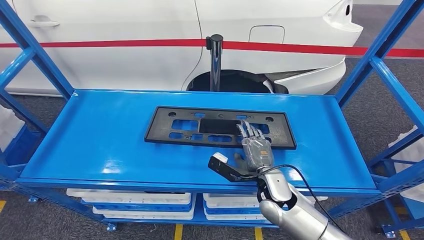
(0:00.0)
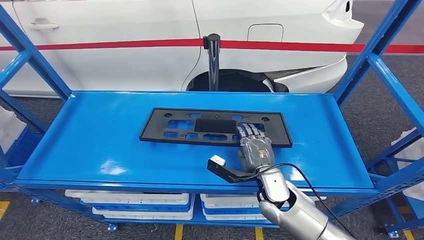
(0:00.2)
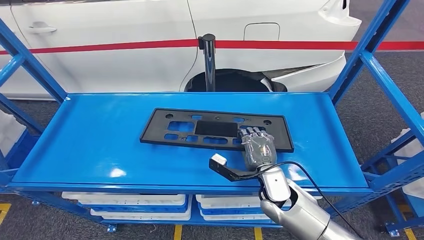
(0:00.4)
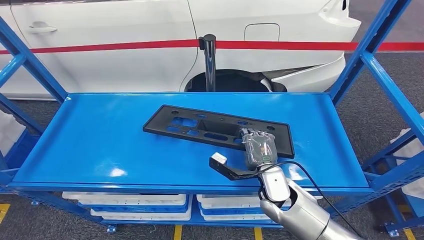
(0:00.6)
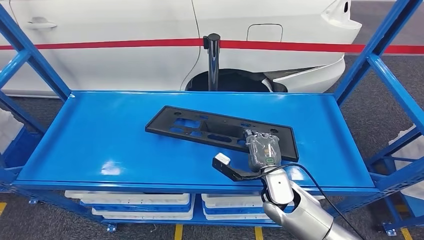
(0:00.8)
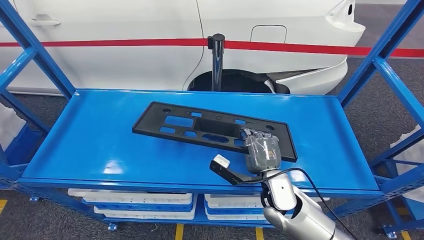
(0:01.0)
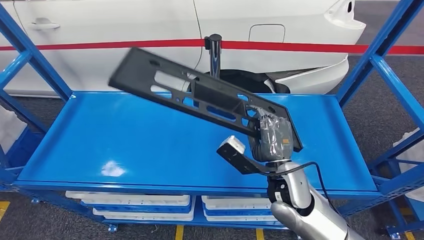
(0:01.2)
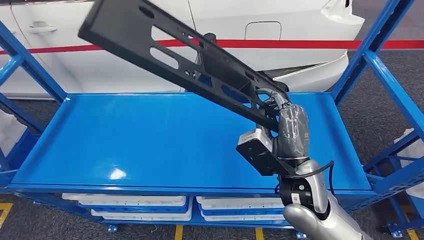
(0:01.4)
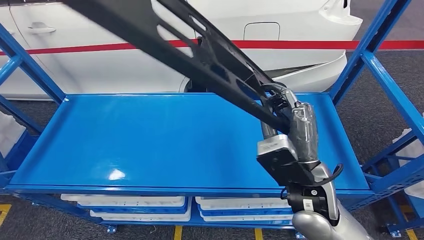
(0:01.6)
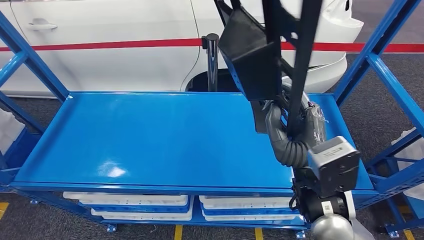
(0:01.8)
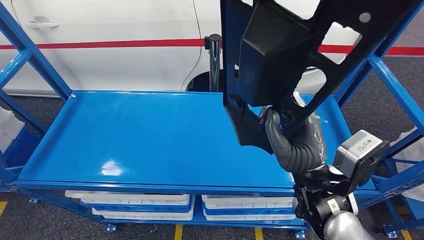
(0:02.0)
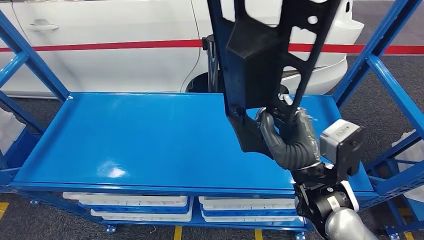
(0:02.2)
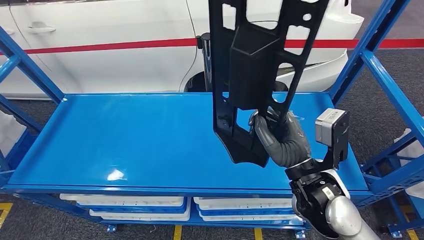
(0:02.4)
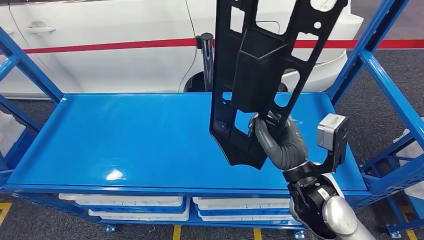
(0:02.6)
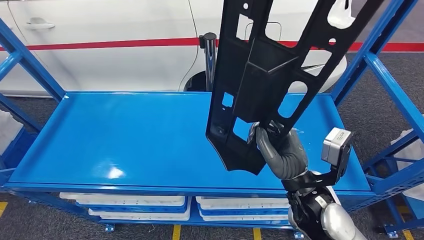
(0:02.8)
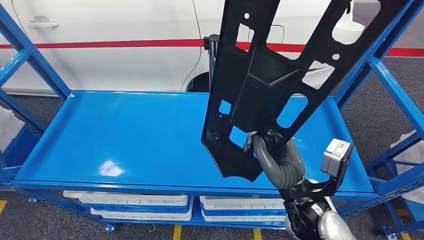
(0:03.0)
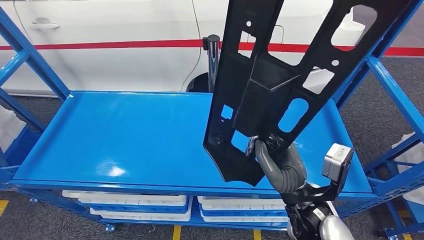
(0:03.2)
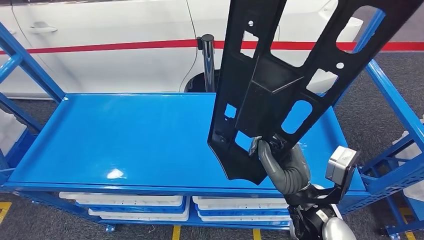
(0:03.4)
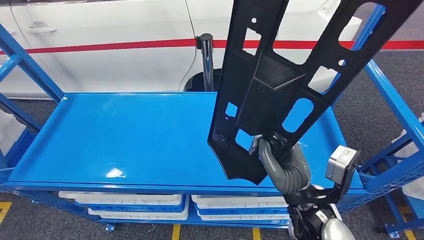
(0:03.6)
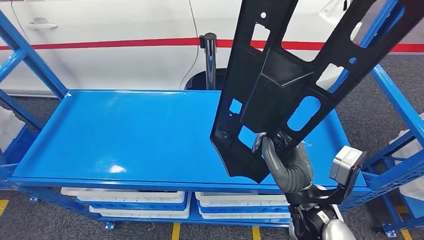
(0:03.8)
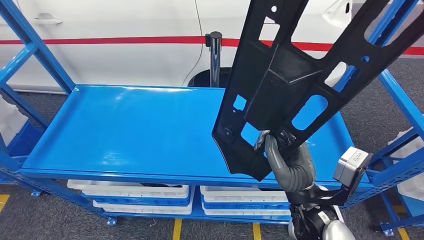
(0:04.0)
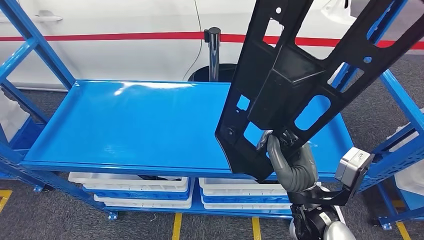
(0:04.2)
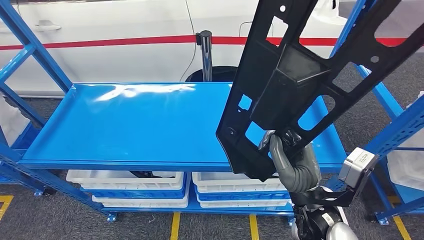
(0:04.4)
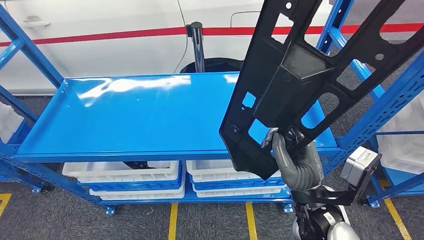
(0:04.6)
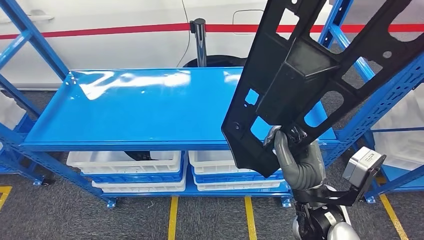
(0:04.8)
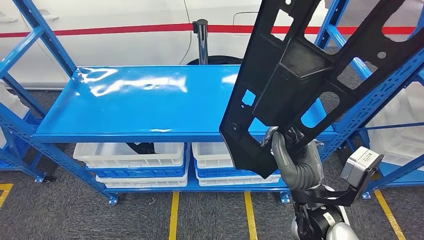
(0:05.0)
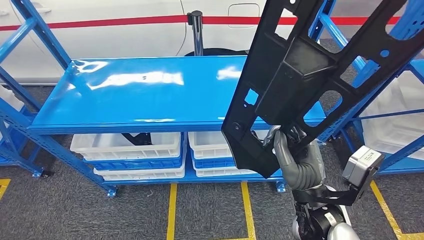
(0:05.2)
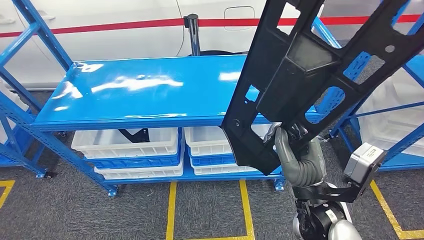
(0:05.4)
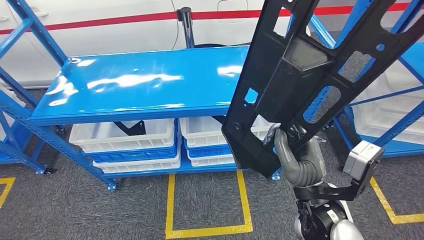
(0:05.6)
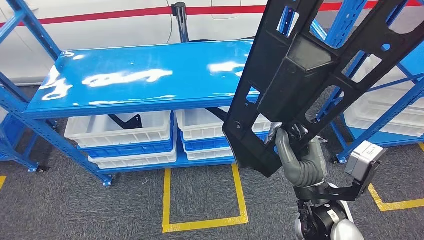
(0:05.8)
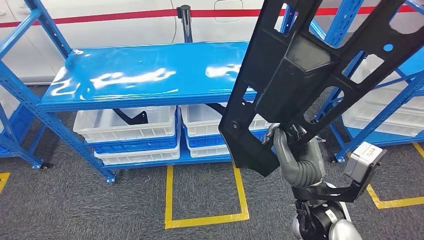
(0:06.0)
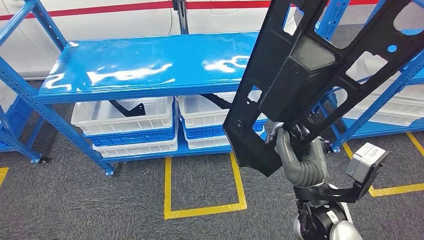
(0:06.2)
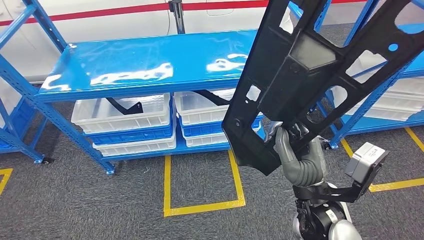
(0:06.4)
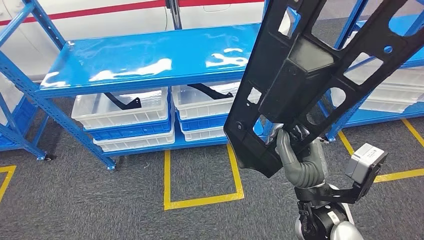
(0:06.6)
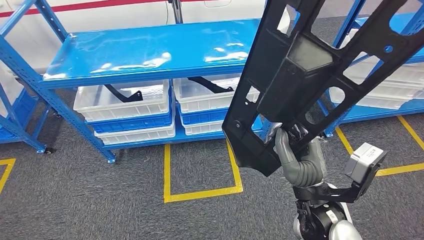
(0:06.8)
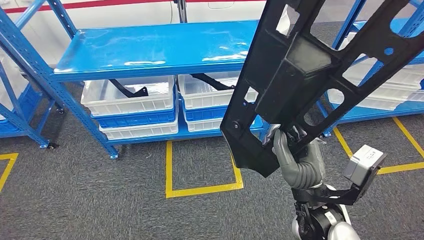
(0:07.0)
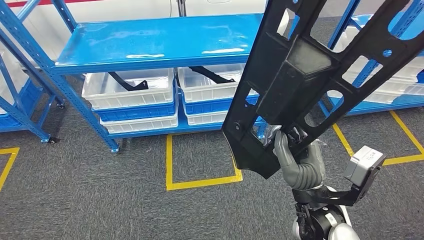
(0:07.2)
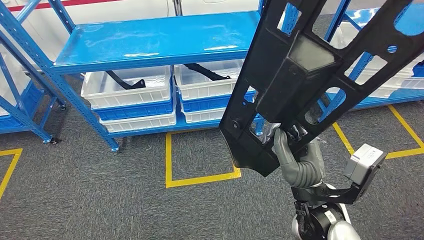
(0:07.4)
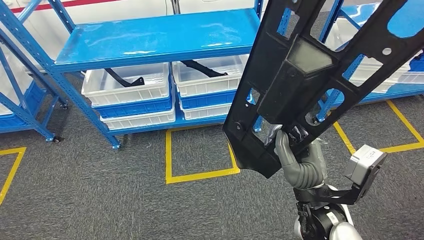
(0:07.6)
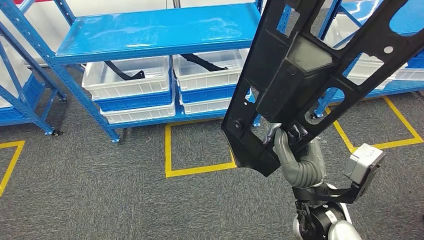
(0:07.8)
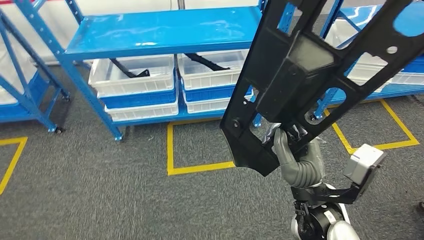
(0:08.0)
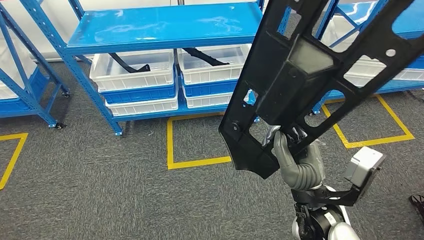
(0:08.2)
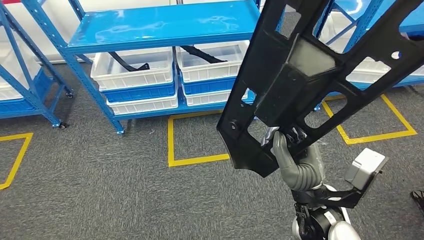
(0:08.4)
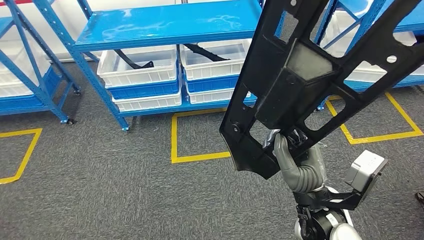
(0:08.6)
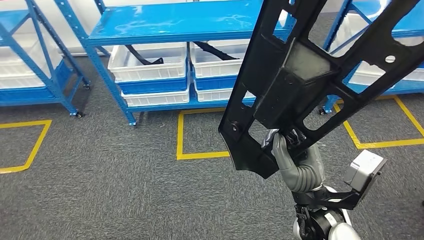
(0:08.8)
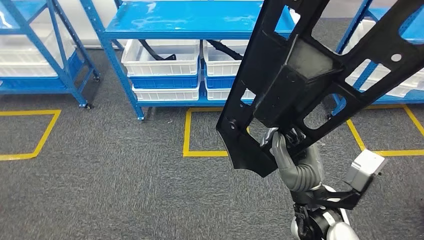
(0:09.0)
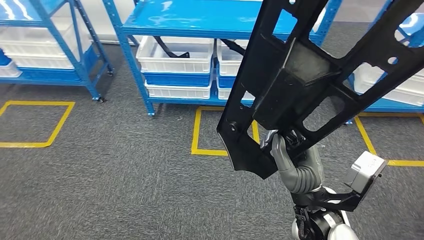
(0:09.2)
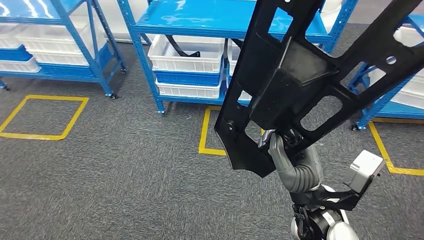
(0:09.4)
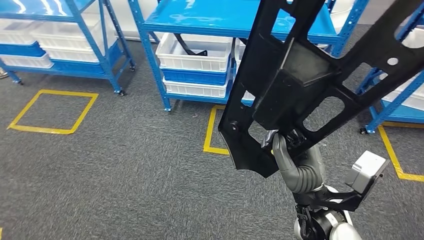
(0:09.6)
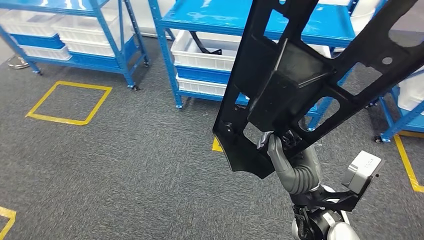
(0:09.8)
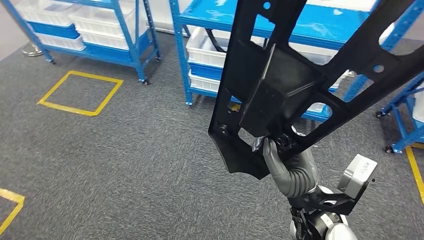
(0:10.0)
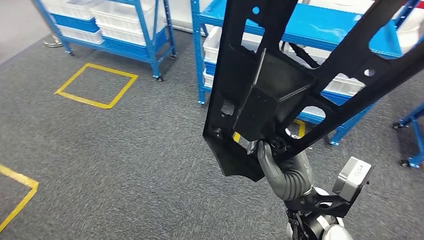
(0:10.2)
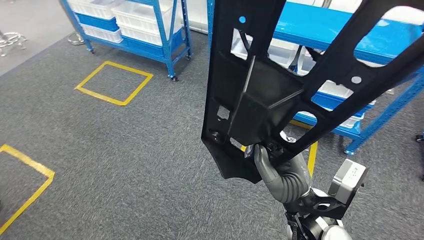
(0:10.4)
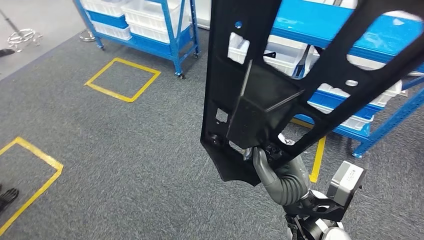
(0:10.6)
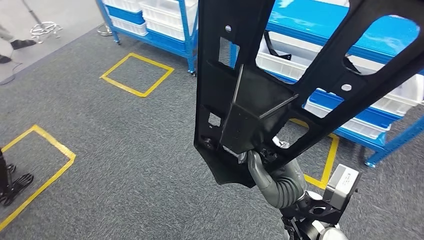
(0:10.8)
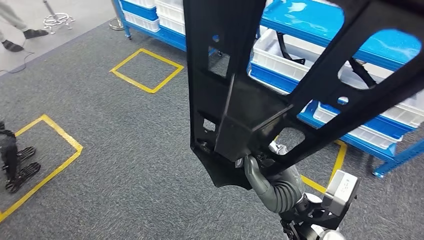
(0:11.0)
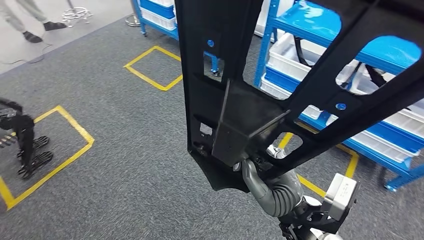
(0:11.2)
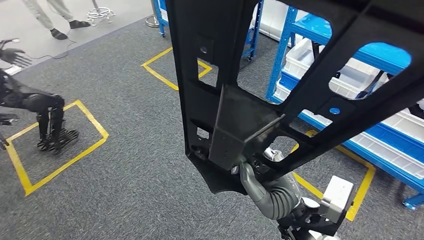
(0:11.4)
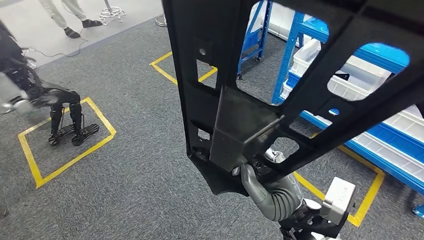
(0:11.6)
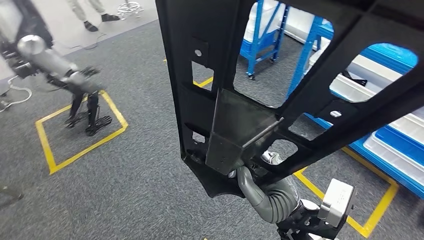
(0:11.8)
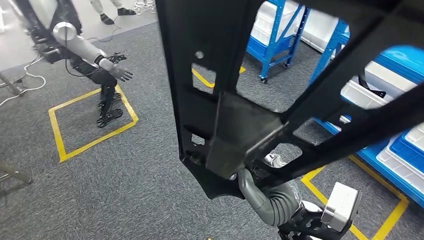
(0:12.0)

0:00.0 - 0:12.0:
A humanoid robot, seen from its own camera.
Step, 0:00.0 - 0:02.0: Pick up the large material from the shelf.

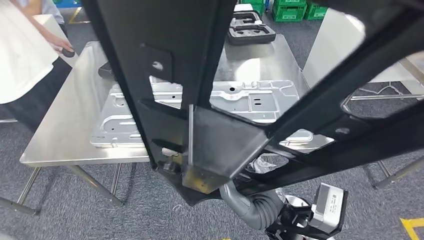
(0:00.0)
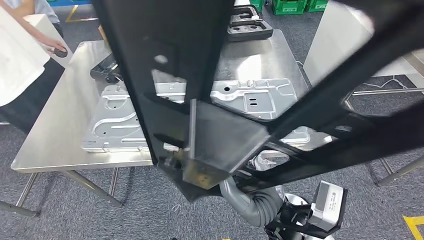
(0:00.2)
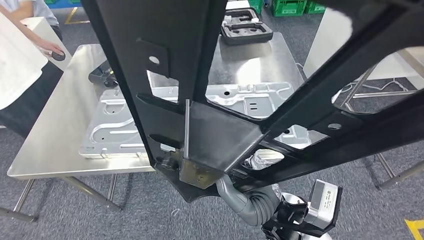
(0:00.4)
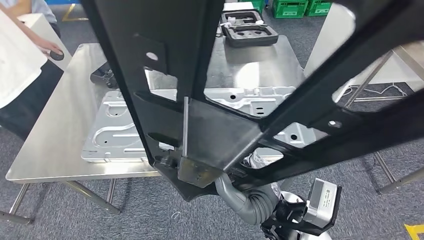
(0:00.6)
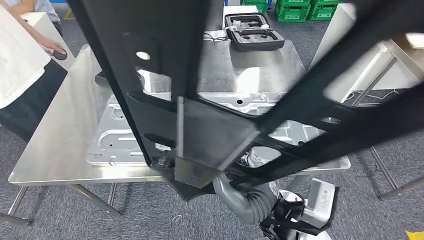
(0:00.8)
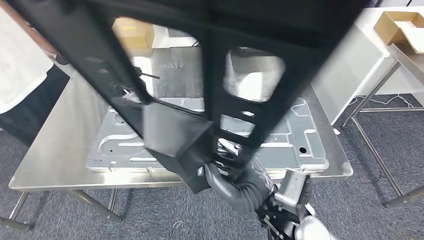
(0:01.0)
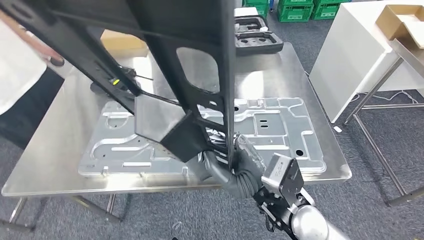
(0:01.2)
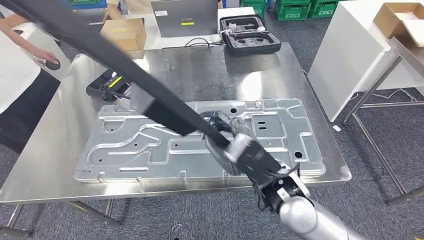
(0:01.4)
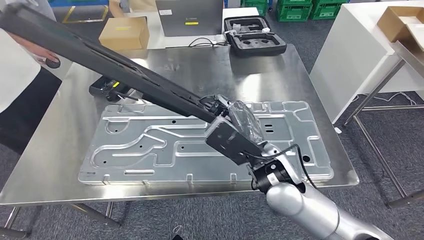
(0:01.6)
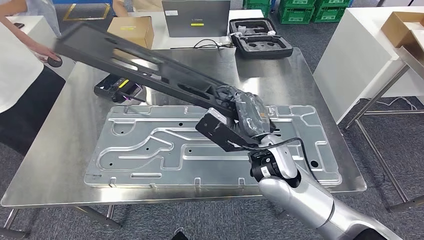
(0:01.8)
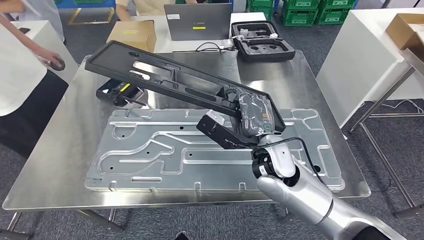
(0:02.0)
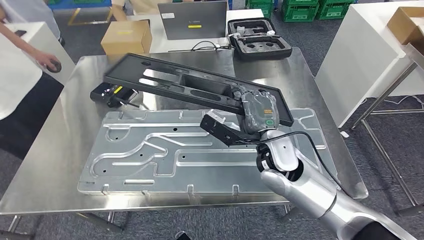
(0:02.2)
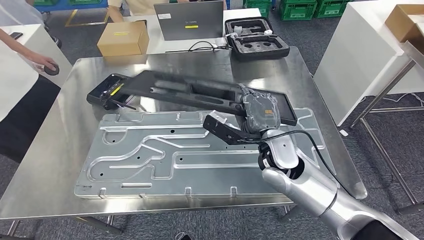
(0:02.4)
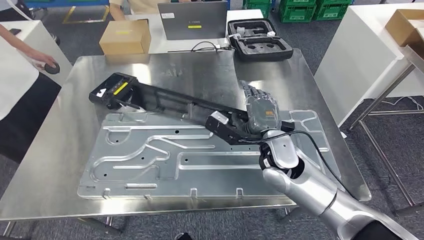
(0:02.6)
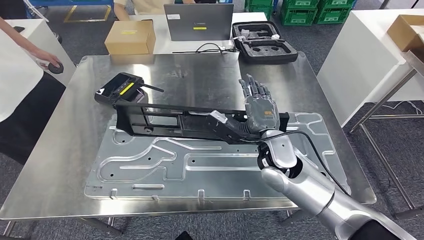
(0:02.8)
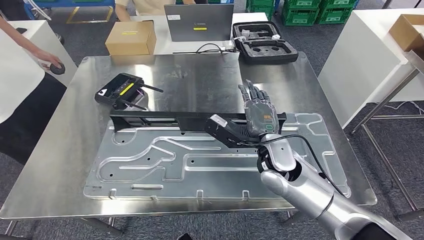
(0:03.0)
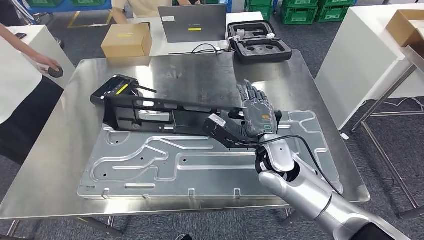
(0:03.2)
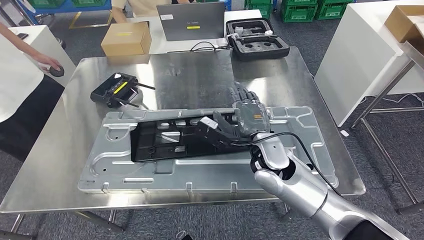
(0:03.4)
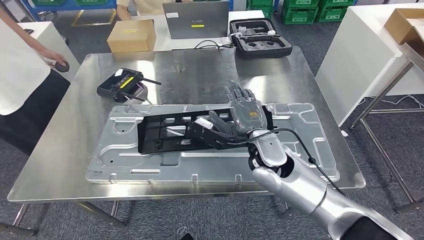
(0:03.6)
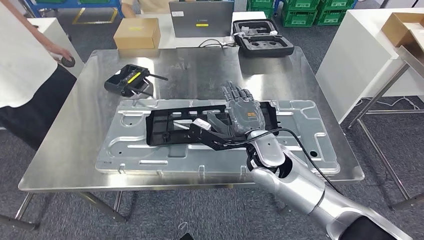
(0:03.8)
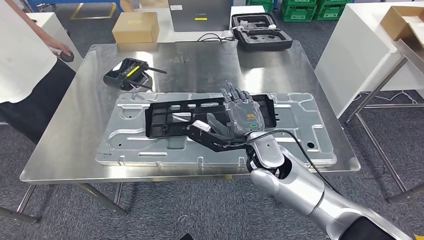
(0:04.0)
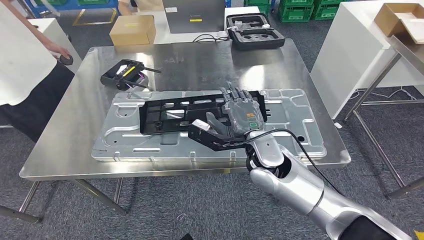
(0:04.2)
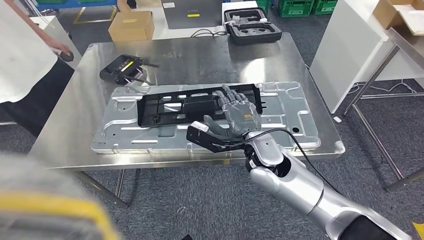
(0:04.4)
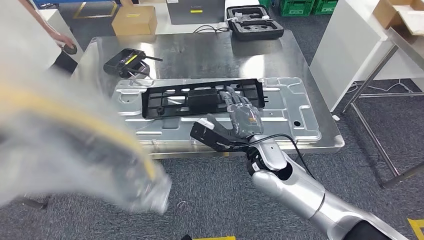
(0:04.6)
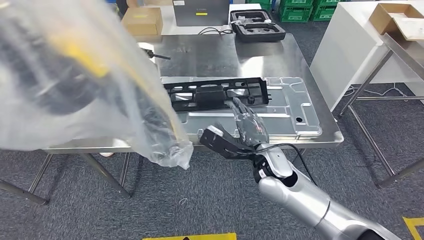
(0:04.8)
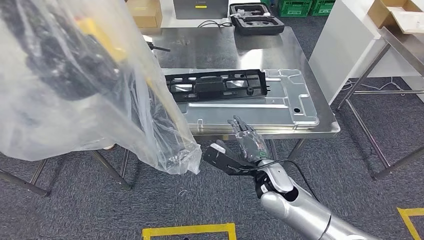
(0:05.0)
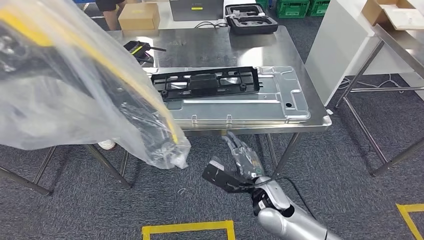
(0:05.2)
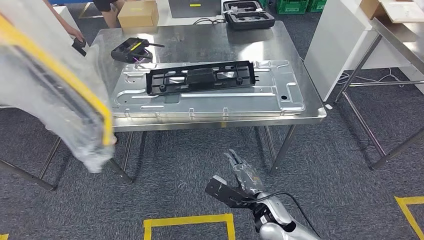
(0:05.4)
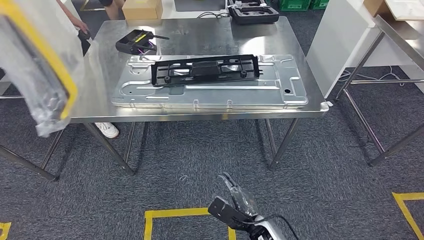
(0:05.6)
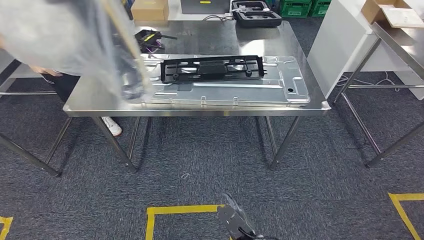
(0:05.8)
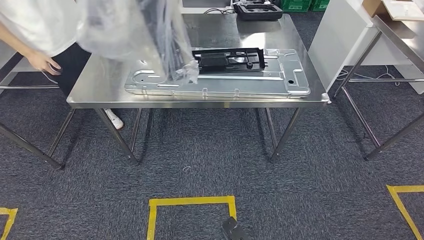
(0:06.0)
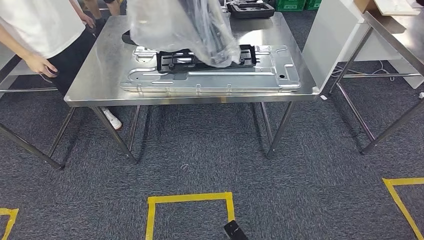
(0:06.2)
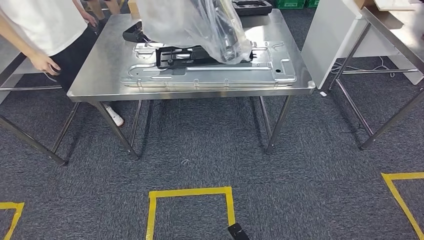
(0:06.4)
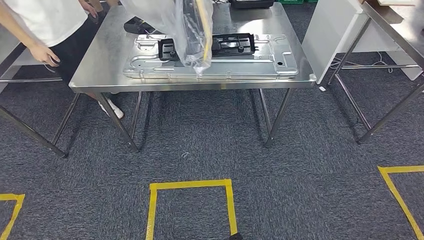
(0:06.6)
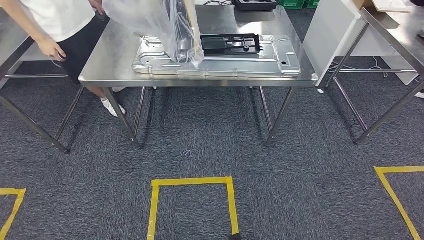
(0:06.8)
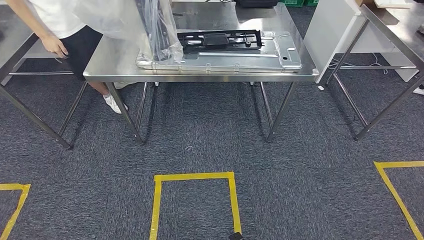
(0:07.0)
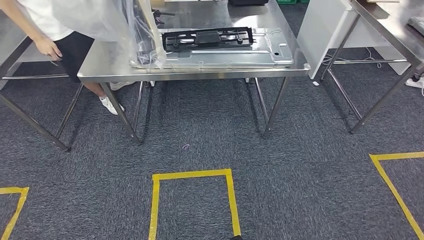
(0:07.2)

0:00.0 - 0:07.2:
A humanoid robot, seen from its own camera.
Step, 0:01.4 - 0:05.8: Insert the large material into the corresponding slot on the workbench.
